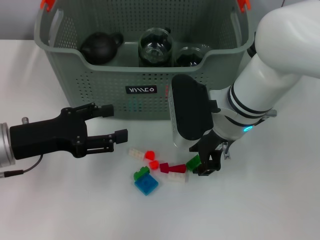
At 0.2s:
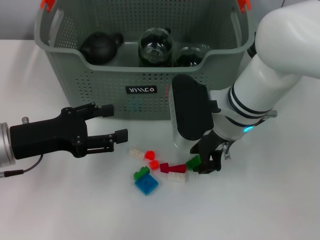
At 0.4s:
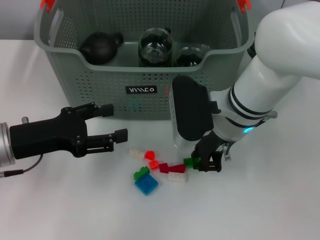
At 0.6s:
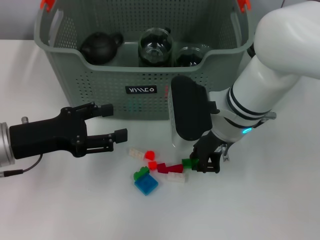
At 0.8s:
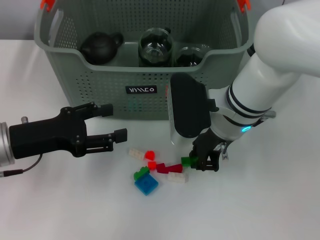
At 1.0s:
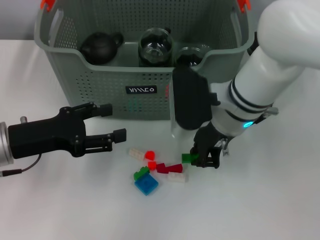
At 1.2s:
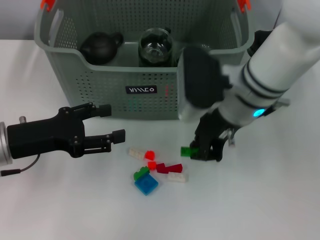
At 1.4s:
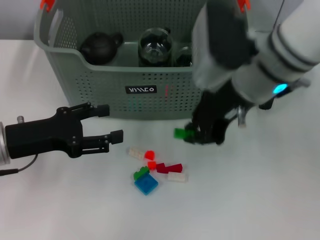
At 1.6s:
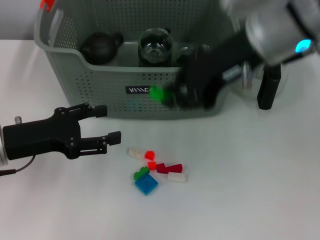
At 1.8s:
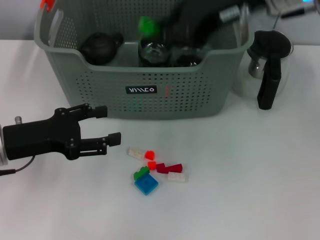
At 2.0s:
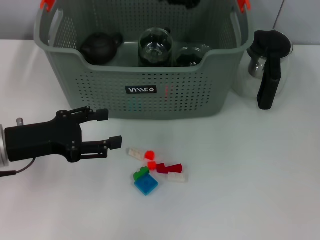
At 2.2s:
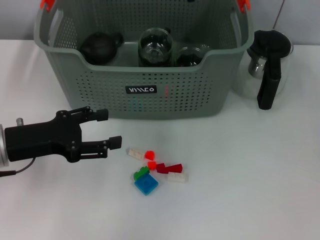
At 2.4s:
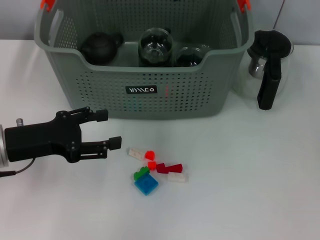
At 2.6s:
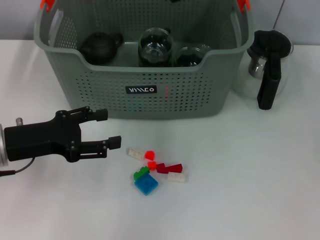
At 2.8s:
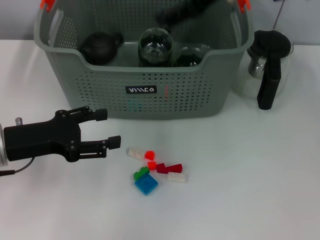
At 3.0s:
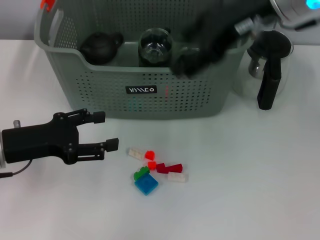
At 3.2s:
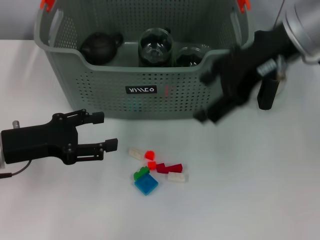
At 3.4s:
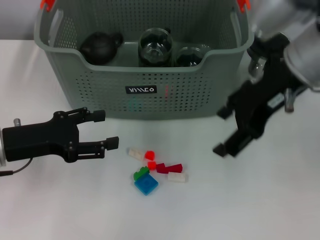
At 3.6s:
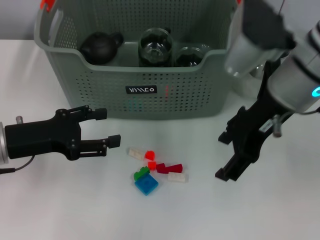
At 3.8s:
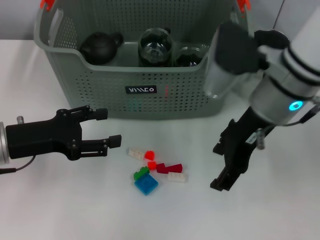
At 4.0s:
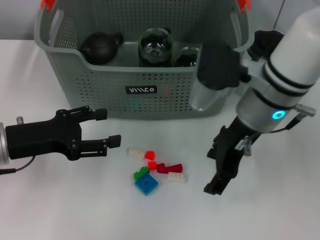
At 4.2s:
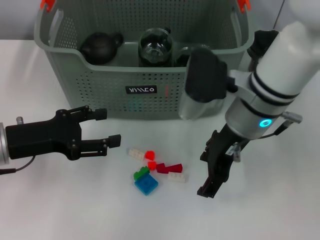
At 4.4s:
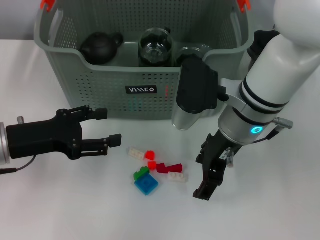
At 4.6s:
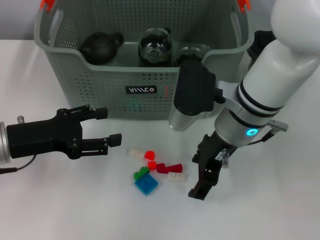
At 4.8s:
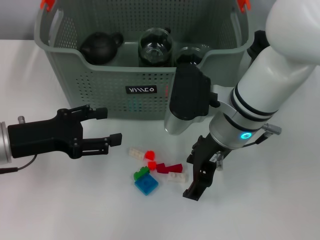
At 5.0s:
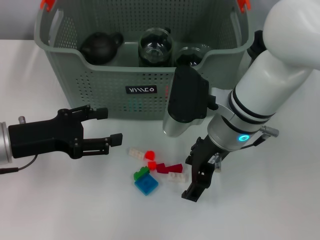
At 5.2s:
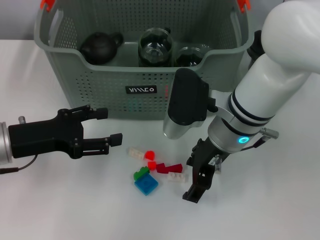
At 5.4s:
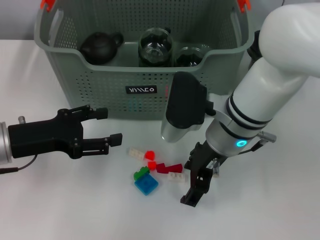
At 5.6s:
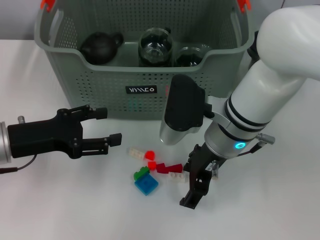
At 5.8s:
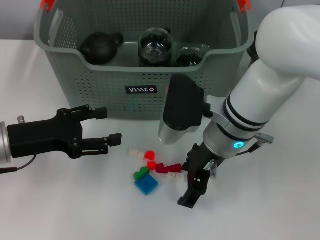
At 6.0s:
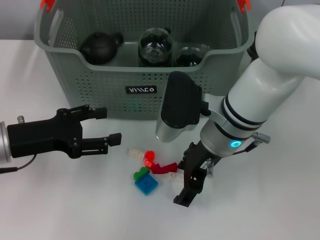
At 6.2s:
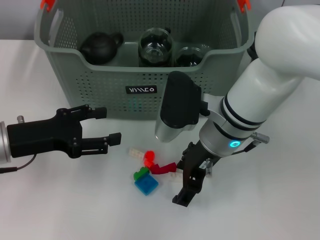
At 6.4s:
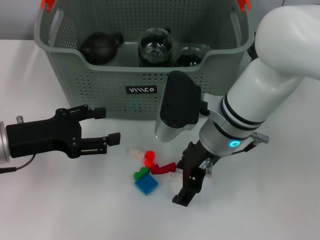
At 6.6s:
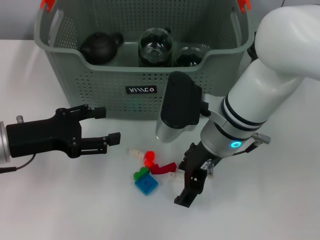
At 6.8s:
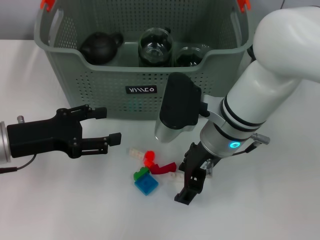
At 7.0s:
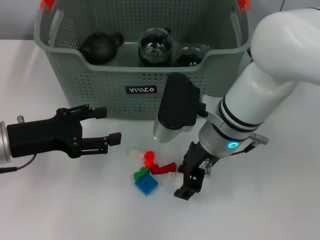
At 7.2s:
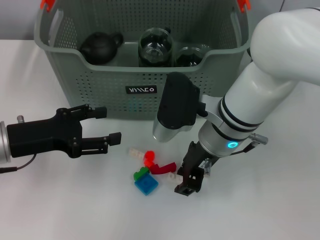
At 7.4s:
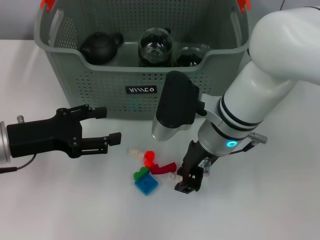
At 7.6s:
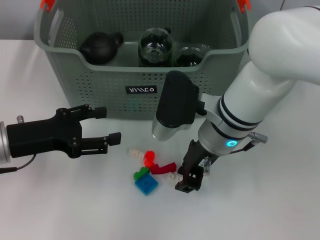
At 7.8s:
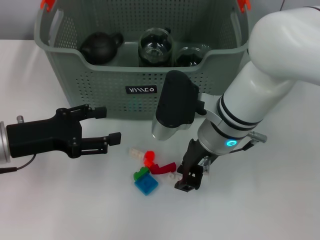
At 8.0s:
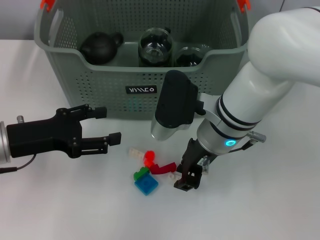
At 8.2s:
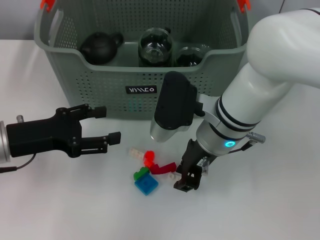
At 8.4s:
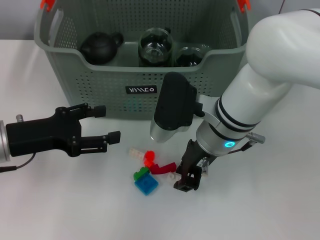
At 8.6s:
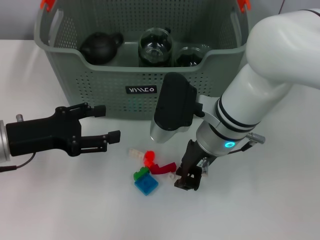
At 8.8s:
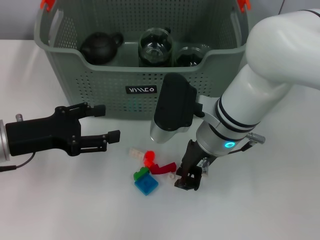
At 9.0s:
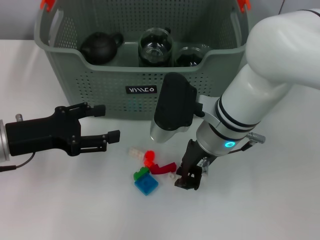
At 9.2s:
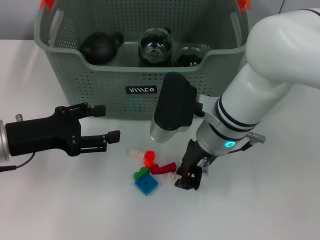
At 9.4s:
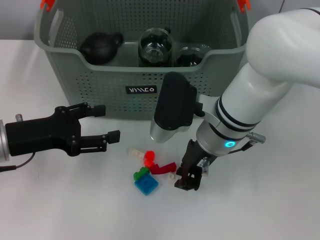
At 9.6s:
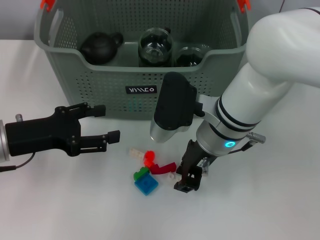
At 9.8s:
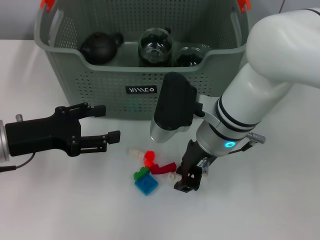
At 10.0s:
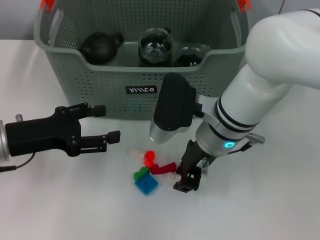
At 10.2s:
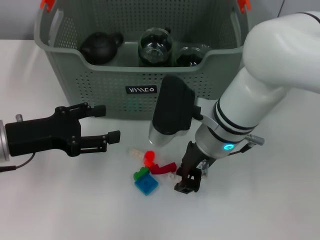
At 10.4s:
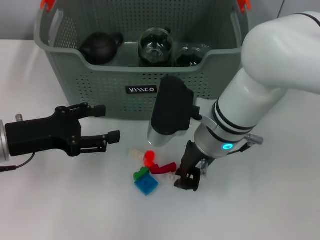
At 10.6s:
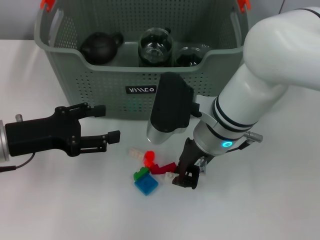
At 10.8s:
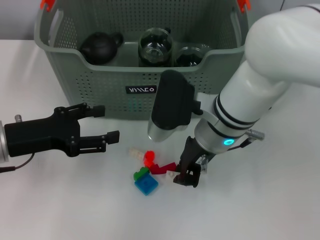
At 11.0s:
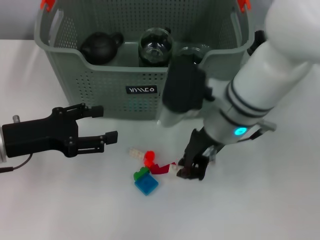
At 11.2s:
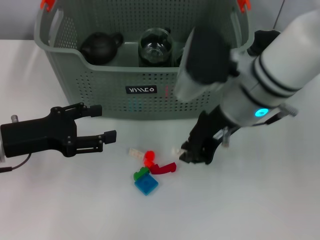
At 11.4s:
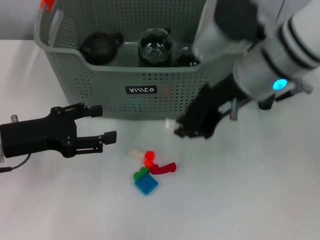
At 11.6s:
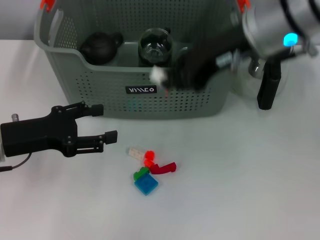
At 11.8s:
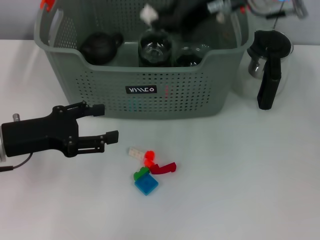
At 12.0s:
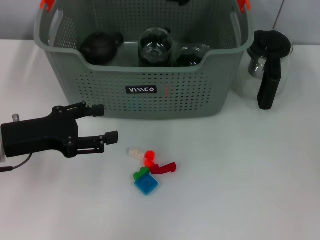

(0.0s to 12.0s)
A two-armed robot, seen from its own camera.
Task of the whole recording: pick up the teacup on the table and place it into the storage bin, pick up the block on the table and place it into the storage bin.
Step, 0.8s - 2.2s: Place the green block in the storage box with right gripper.
Step, 2.6s - 9.0s: Grasp the white block with right gripper.
0.0s - 1.6s: The right gripper moves upward, roughly 15 cm.
1.6s - 3.0s: The right gripper opens.
3.0s - 4.4s: The right gripper travels downward by some 15 cm.
4.4s - 6.0s: There are only small adjustments of the grippers.
6.0s - 7.6s: The right gripper closes.
7.6s - 10.4s: Both grippers stay about where they are.
10.4s - 12.0s: The right gripper shifts about 20 cm upward and forward.

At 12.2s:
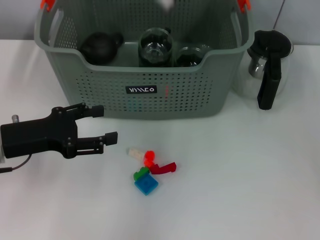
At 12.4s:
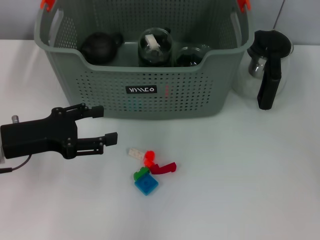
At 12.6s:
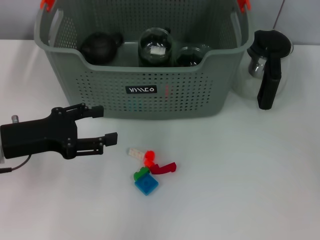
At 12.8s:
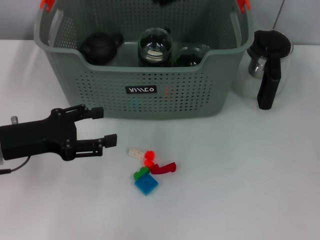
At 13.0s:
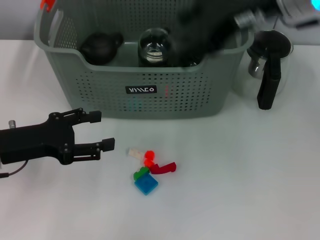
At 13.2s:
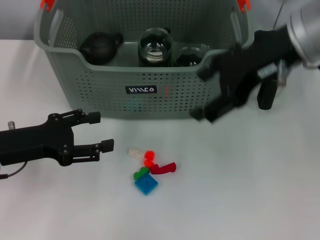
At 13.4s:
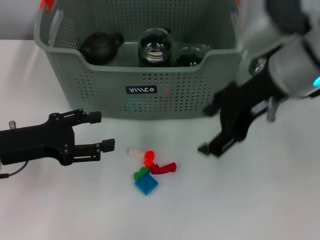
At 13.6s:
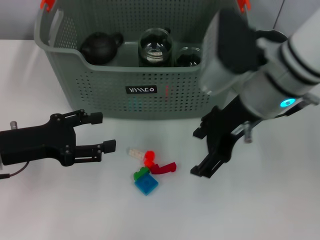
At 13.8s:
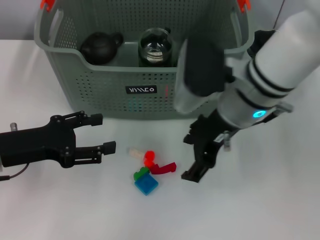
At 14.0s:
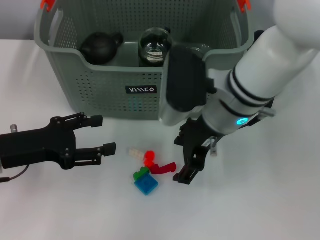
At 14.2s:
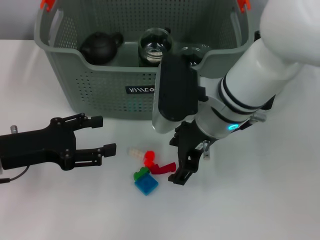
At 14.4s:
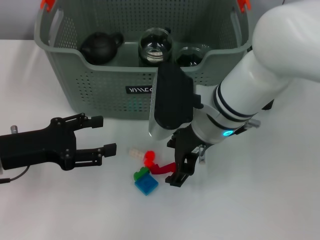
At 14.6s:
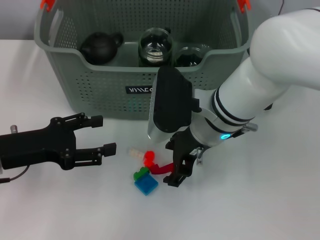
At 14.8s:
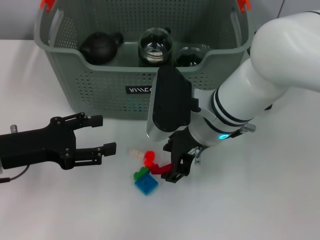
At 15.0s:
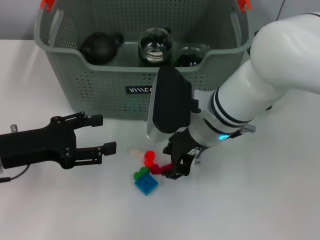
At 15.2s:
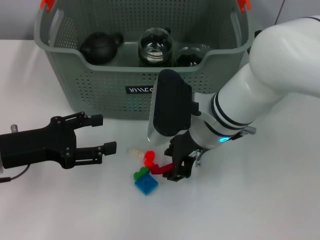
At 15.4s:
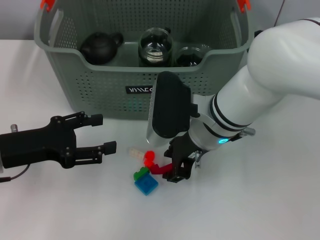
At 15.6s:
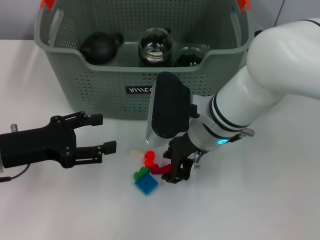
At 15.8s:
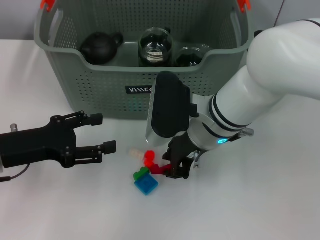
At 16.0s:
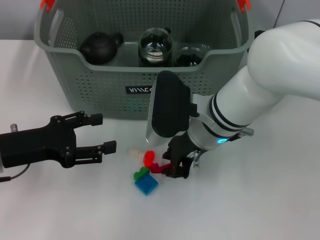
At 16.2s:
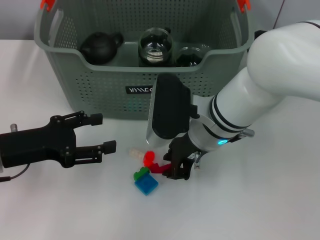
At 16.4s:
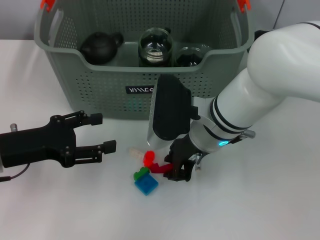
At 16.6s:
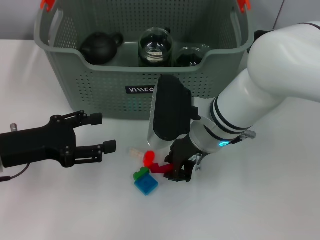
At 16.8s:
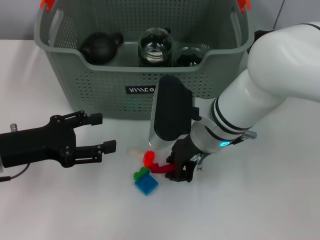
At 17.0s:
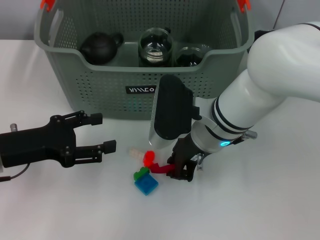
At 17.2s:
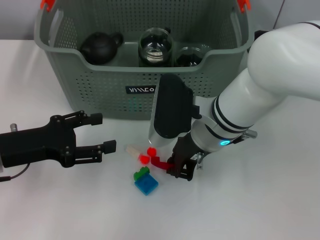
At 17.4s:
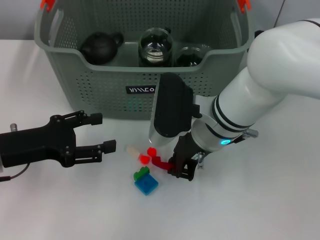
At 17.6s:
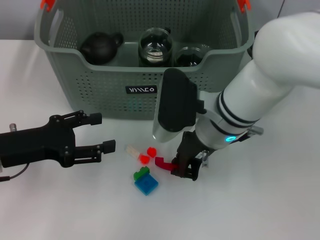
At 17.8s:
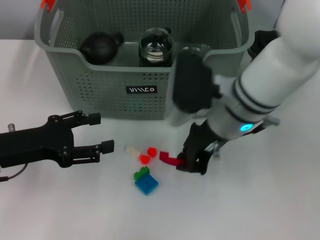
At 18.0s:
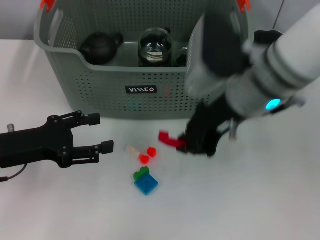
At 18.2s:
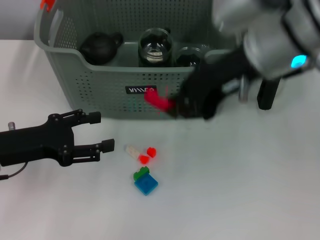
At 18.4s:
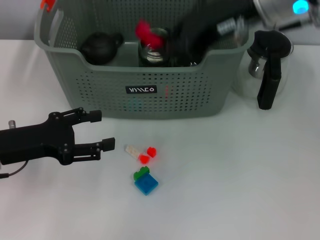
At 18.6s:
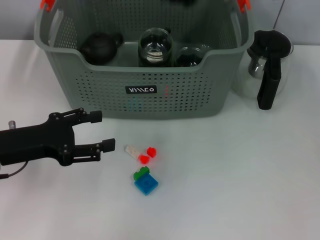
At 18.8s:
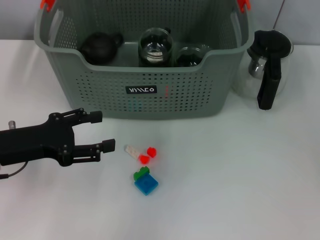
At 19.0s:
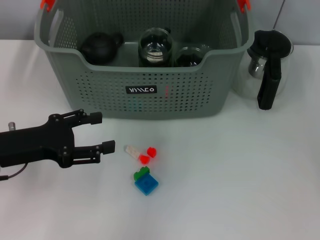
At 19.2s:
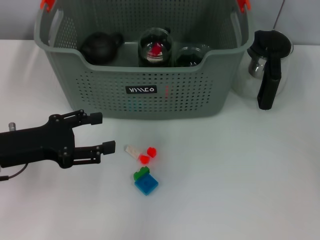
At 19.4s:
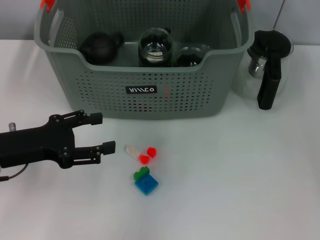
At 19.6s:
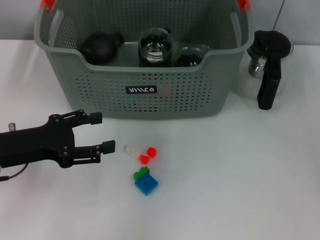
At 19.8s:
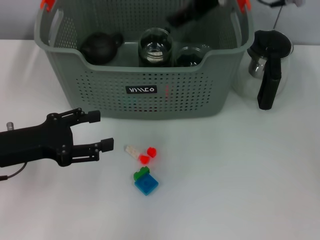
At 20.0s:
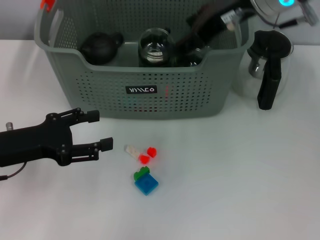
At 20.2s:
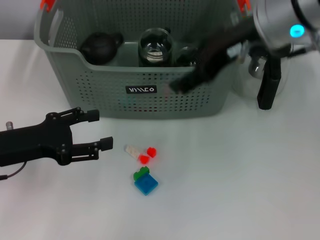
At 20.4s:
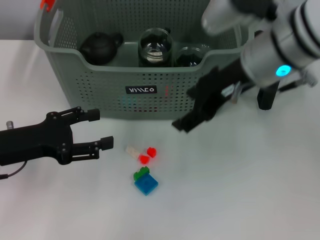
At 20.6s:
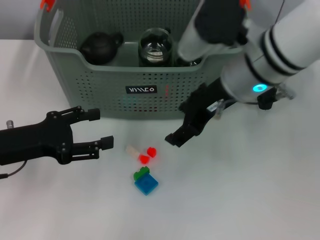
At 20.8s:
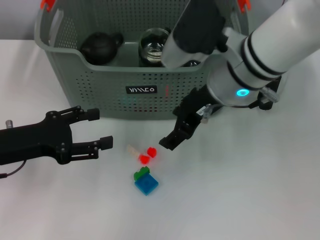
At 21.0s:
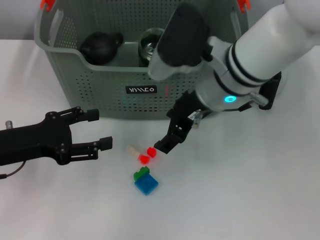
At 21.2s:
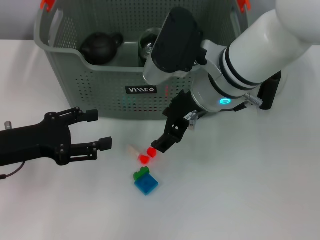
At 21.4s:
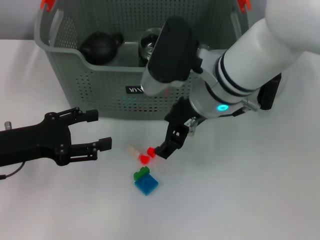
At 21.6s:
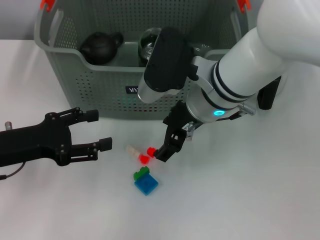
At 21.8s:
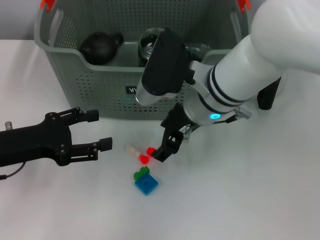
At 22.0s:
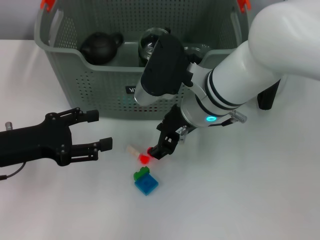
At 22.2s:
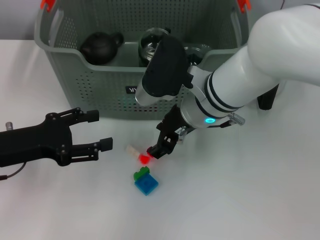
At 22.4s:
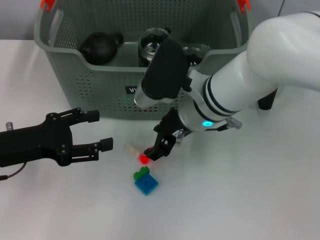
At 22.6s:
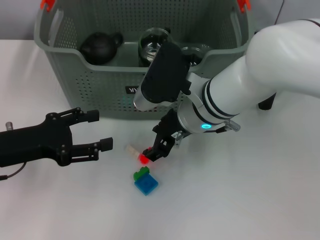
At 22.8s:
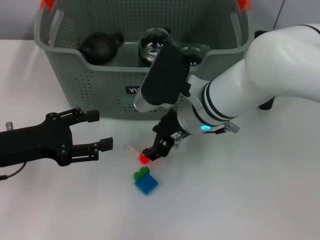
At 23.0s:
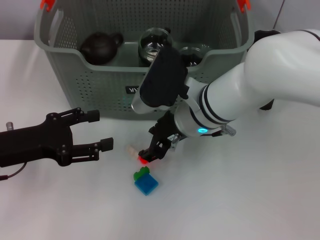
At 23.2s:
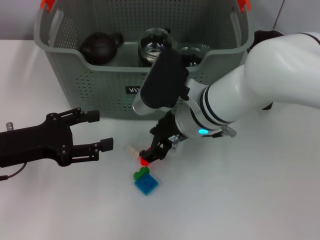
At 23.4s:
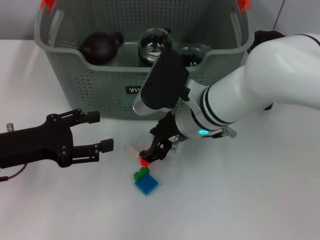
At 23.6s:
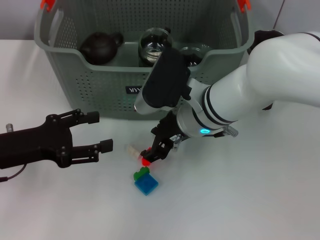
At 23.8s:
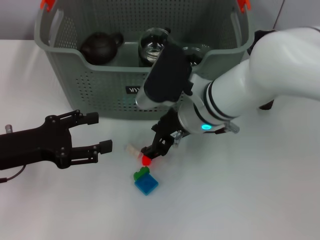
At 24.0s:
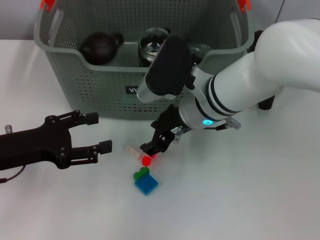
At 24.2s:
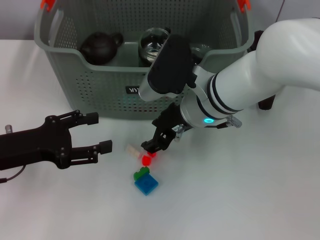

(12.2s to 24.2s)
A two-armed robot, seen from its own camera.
Task of the whole recording: pick up the teacup on the table and place it into the storage bin, pick up the block on the table and place it into the storage bin.
Step, 12.6s - 17.0s: Grasp the red block with right gripper.
Step, 17.2s - 19.2s: Place the red block in the storage box with right gripper.
12.2s - 13.8s: The right gripper travels downward and backward by some 15 cm, and opens its fingers.
13.8s - 15.2s: The right gripper moves downward, about 5 cm, and closes.
15.2s - 16.6s: Both grippers stay about where they are.
16.6s - 18.2s: The right gripper moves upward, approximately 15 cm.
18.2s - 19.8s: The right gripper heads forward, covering about 10 cm, and opens its fingers.
19.8s - 21.2s: The right gripper heads downward, backward and to the left, covering some 15 cm.
21.2s - 22.6s: The right gripper heads downward, covering approximately 5 cm.
22.6s - 24.2s: Both grippers stay put.
